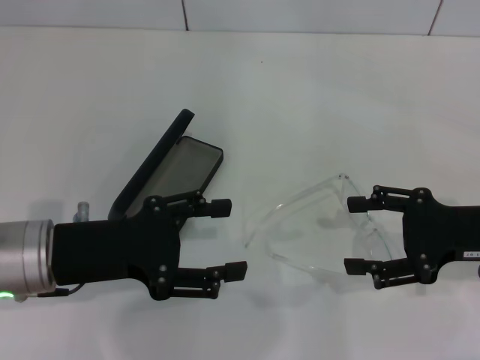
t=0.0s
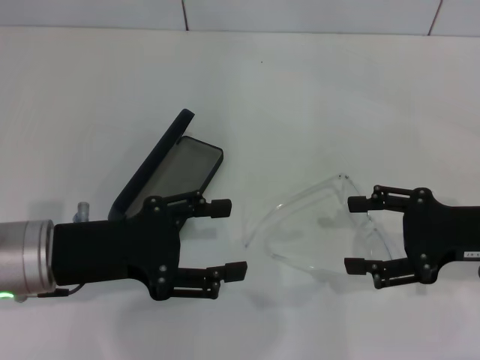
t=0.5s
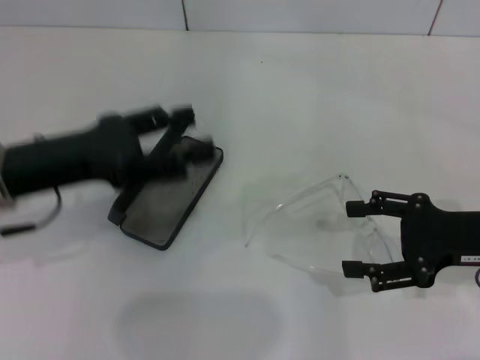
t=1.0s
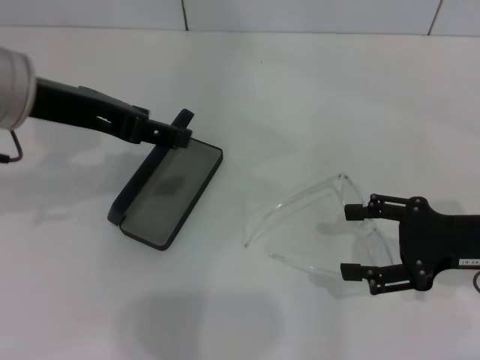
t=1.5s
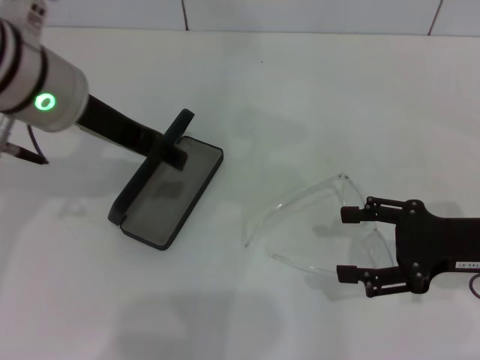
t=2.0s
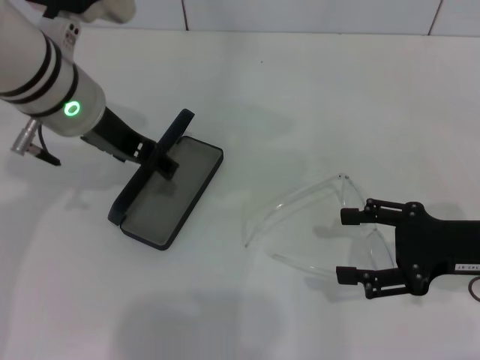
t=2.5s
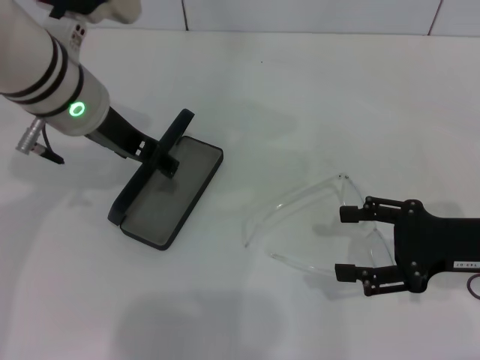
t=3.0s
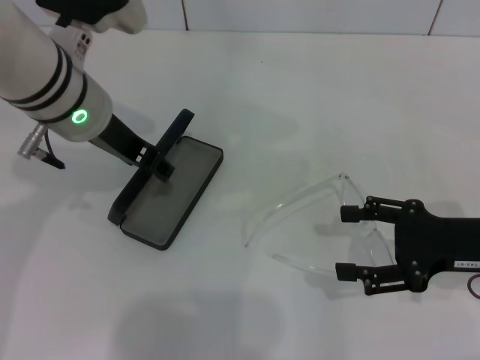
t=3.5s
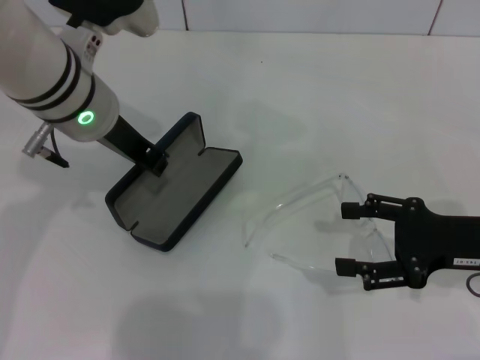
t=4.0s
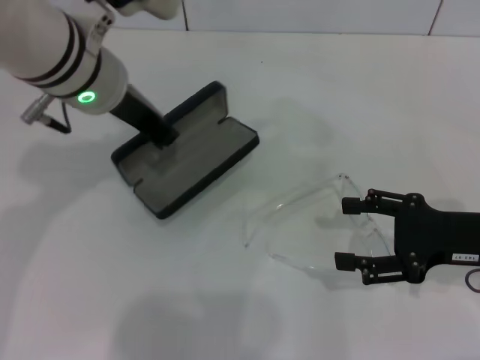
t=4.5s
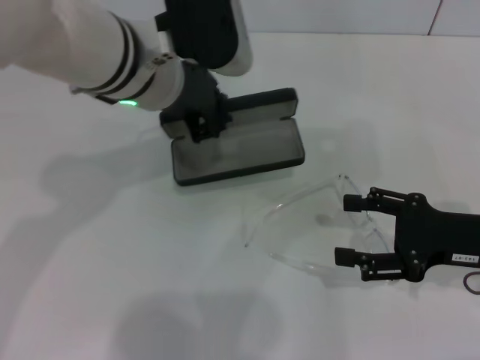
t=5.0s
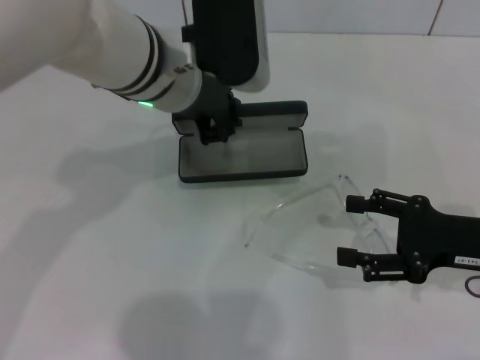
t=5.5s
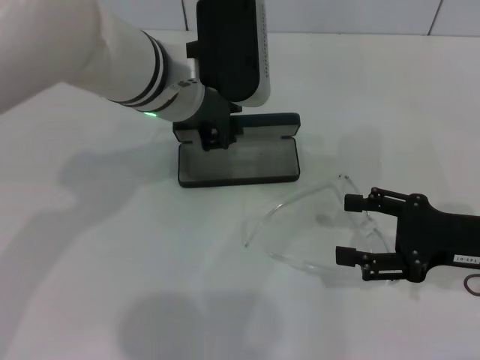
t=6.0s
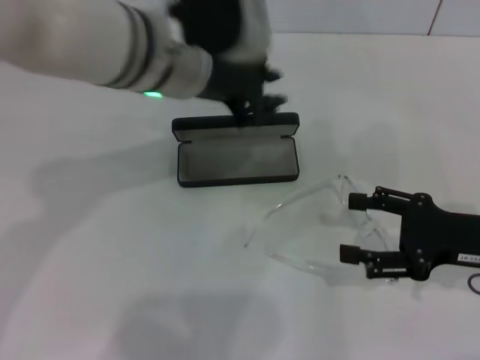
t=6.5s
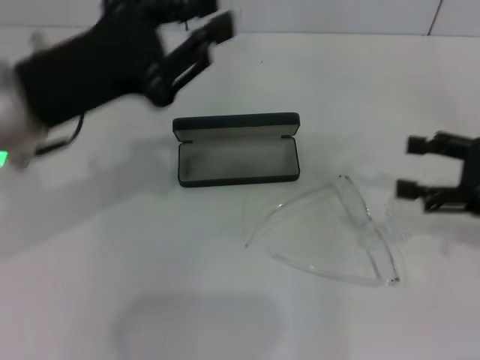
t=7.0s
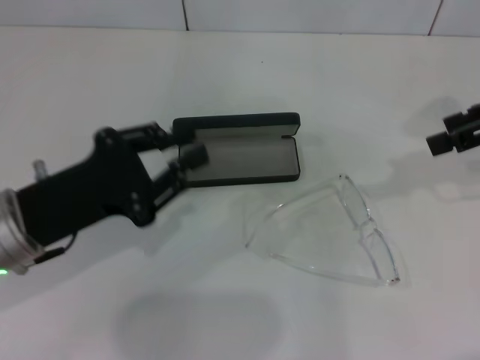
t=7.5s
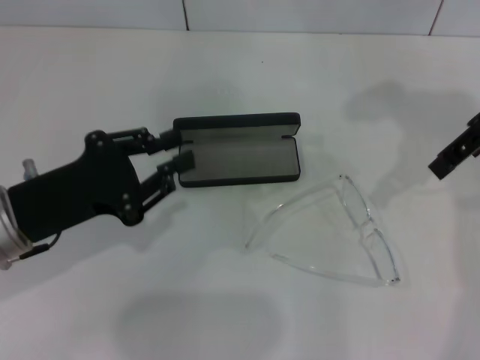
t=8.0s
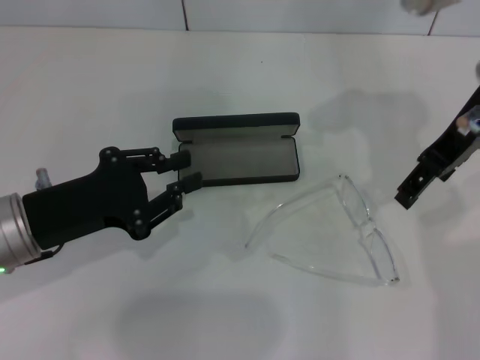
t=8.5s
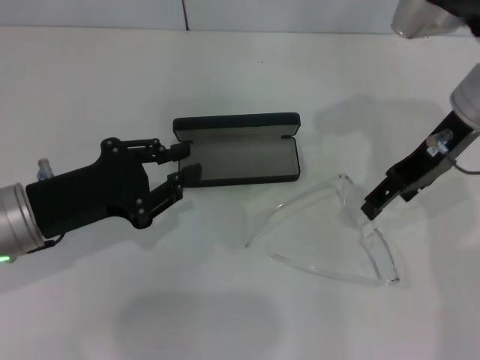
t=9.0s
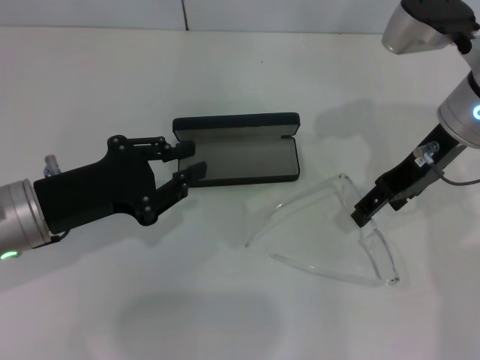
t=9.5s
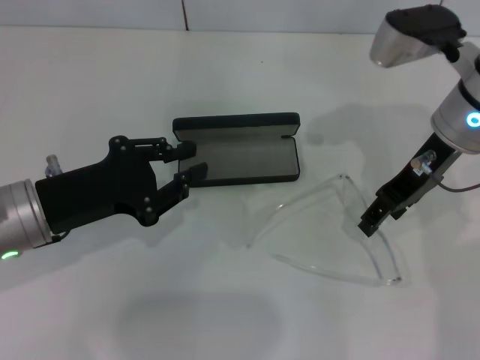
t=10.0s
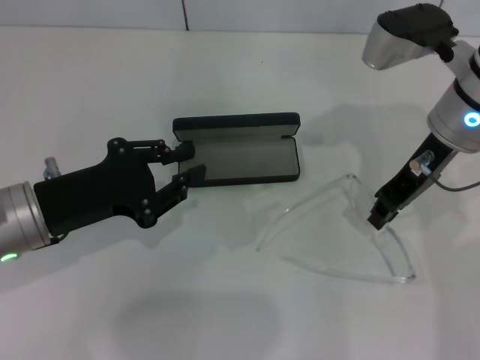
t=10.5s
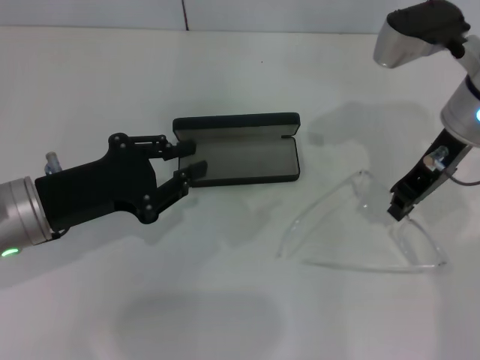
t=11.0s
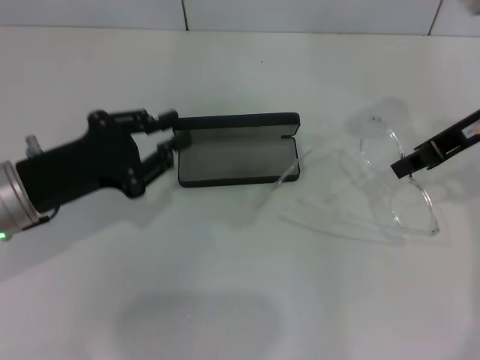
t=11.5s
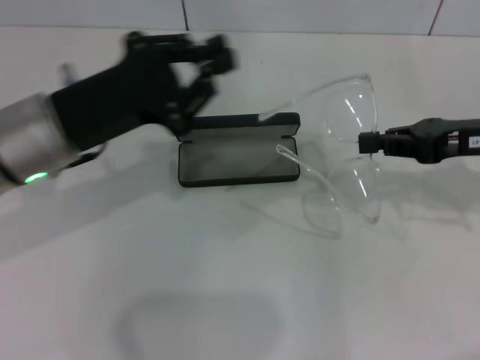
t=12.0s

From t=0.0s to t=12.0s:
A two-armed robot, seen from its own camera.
Step, from t=0.0s to t=4.0s: Grab the glasses case with your left hand.
Step, from t=4.5s to t=6.0s: Place the glasses case in the center of the table with your left hand.
Step, from t=6.5s to t=10.0s: Grab the eyeglass frame with your right hand.
From t=0.0s to t=2.0s: The left gripper moves upward, forward and to the right, about 15 cm.
From t=2.0s to t=4.0s: The left gripper shifts by approximately 5 cm, and closes.
From t=4.0s to t=6.0s: The left gripper goes some 5 cm to the right.
From t=6.0s to t=8.0s: The left gripper moves to the left, backward and downward, roughly 20 cm. Meanwhile the right gripper heads upward and forward, covering roughly 20 cm.
From t=8.0s to t=10.0s: The right gripper moves downward and to the left, approximately 10 cm.
From t=10.0s to t=12.0s: The right gripper heads to the right, covering approximately 10 cm, and closes up. Meanwhile the left gripper moves some 5 cm.

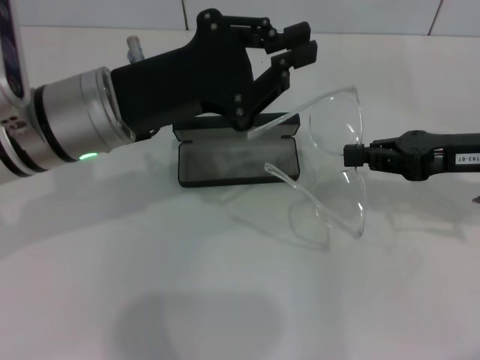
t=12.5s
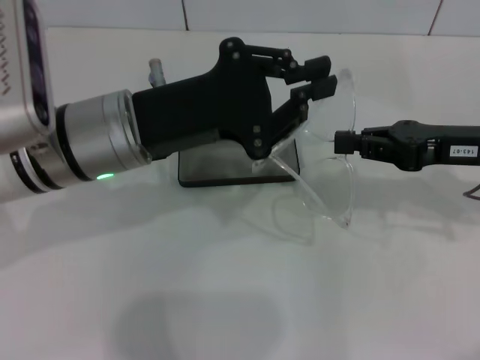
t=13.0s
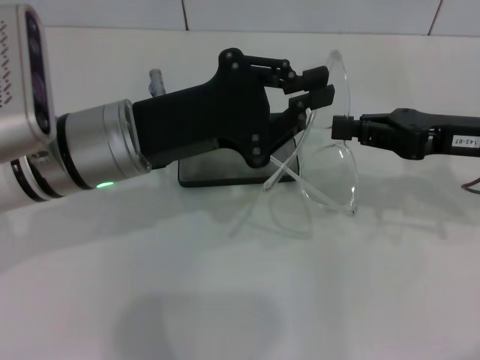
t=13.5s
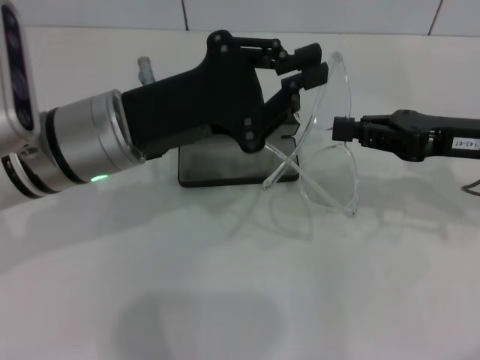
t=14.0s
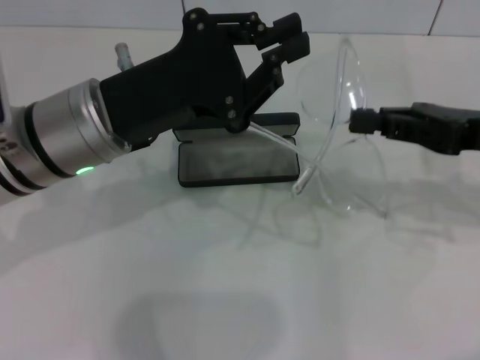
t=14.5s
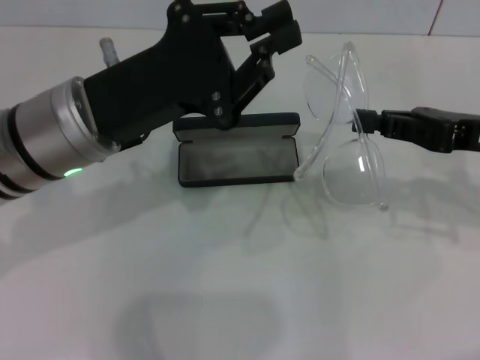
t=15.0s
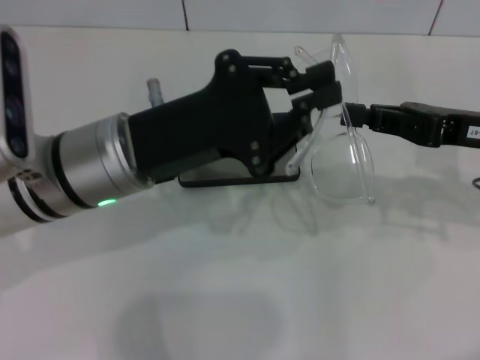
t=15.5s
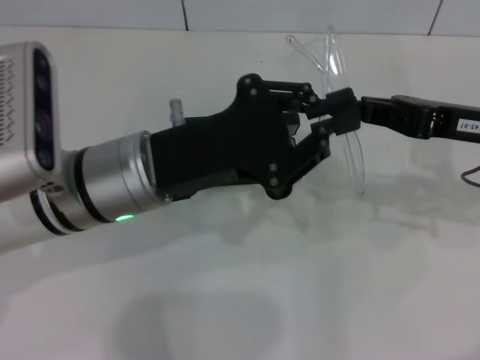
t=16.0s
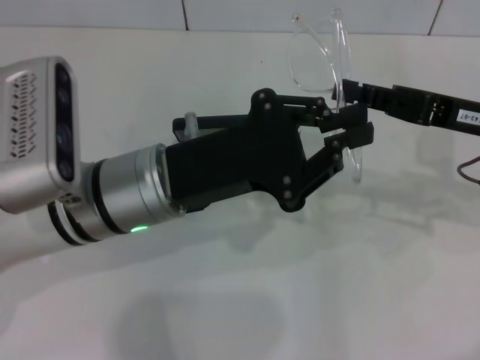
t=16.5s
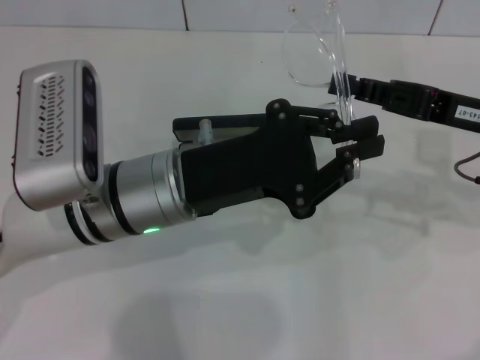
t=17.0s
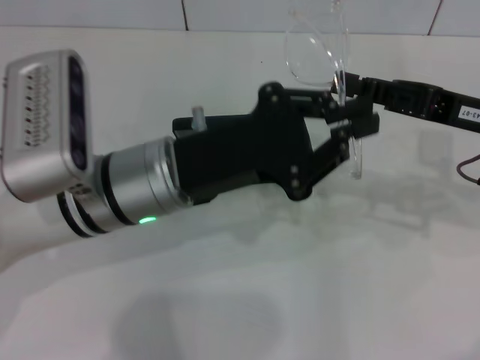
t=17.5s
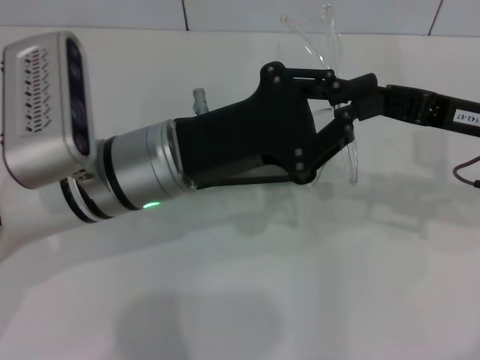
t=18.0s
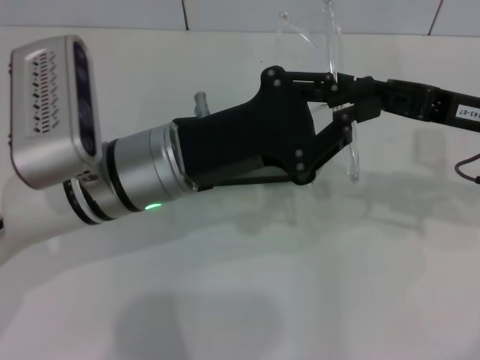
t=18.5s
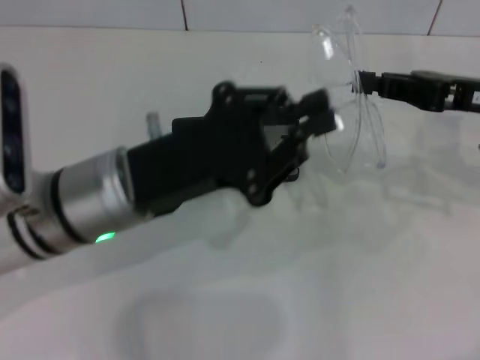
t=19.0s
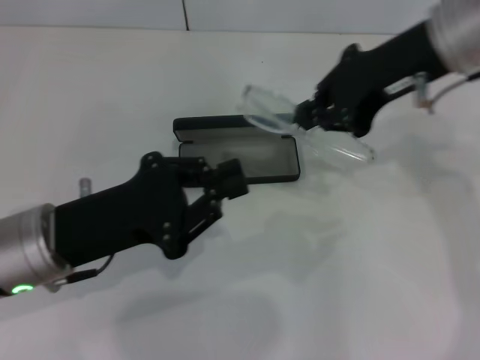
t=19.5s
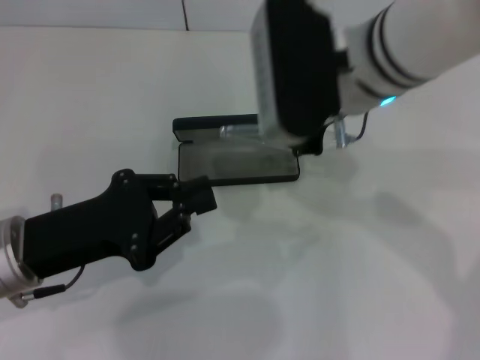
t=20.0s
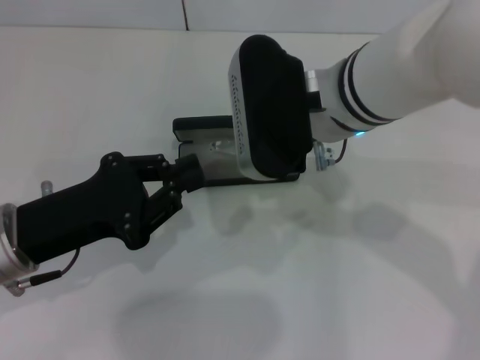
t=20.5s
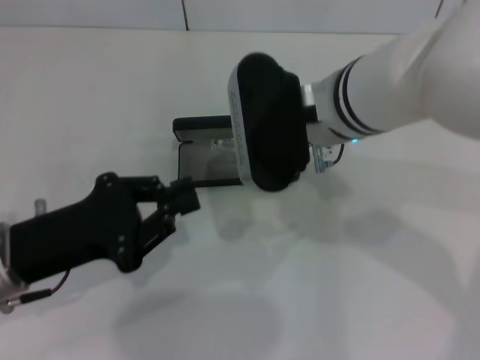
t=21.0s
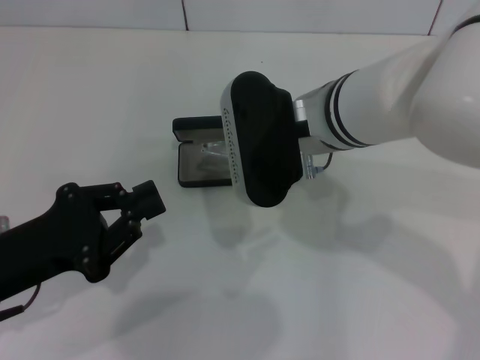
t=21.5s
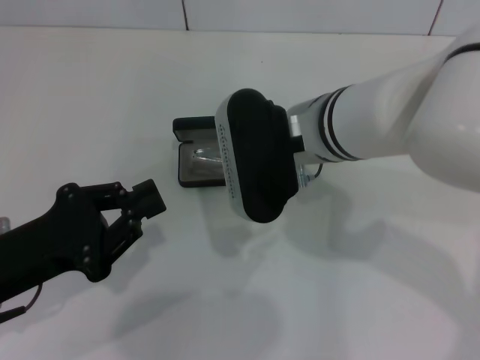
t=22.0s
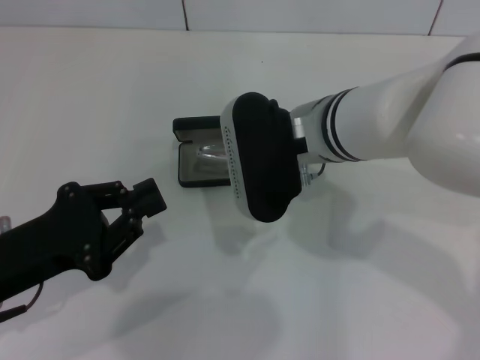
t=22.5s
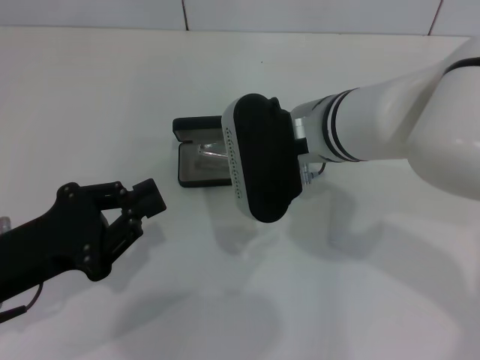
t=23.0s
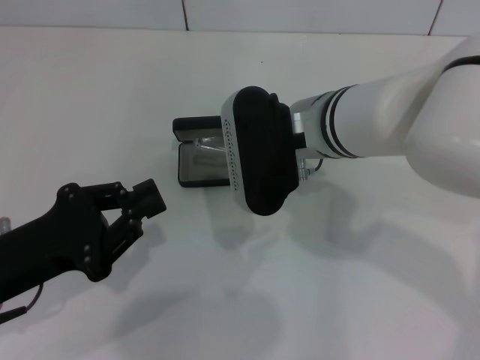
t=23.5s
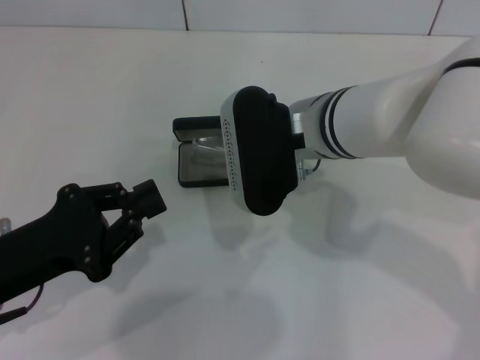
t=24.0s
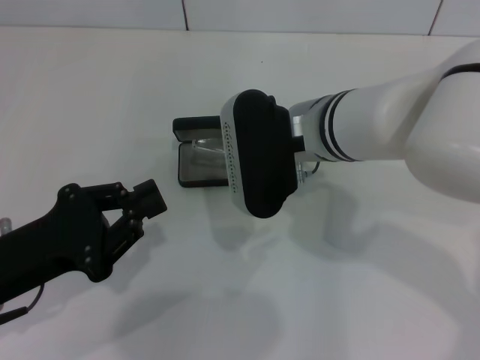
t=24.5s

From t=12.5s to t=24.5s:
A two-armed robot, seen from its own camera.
Step, from t=12.5s to t=18.5s: Fold the frame with your left hand.
From t=12.5s to t=14.5s: The grippers move only a little.
From t=14.5s to t=16.5s: The left gripper changes place by some 5 cm.
From t=16.5s to t=18.5s: There are only small adjustments of the grippers.
From t=18.5s to t=20.5s: The left gripper moves to the left and backward, some 15 cm; the right gripper moves to the left, about 20 cm.
From t=22.5s to t=24.5s: Neither gripper changes place.

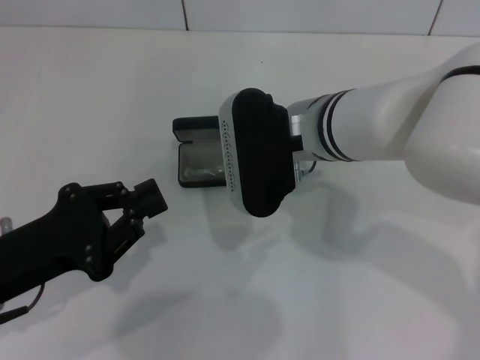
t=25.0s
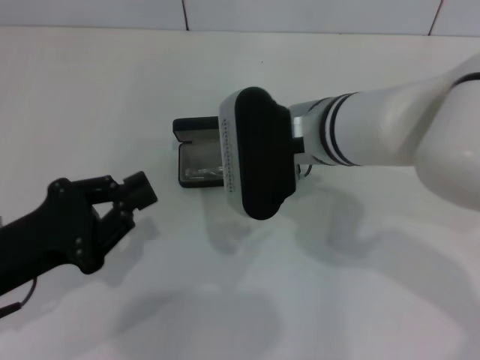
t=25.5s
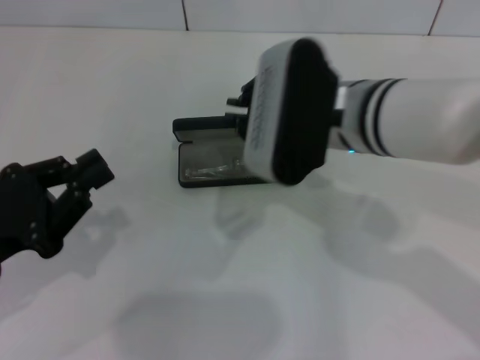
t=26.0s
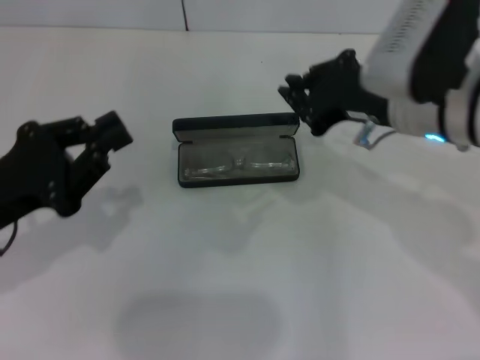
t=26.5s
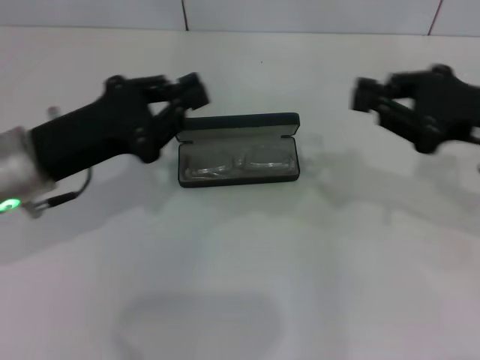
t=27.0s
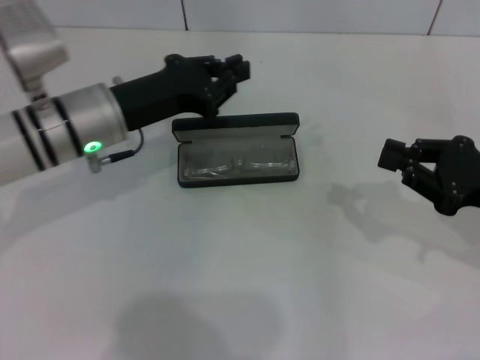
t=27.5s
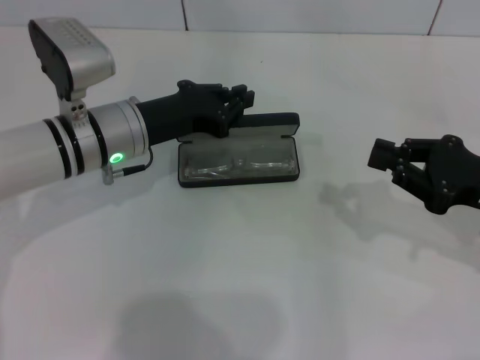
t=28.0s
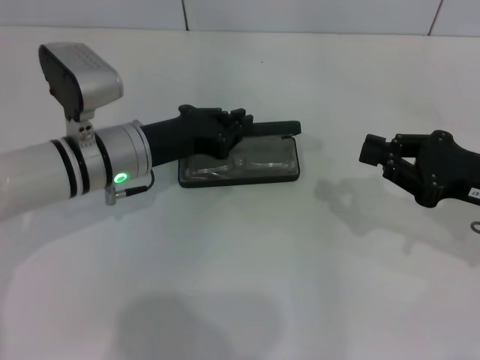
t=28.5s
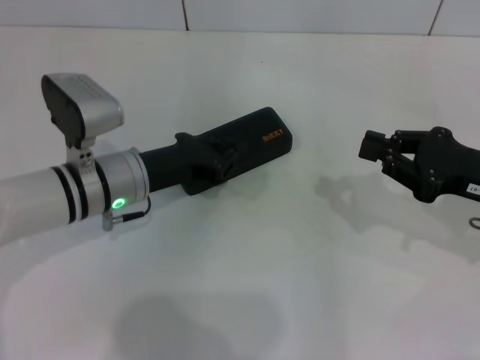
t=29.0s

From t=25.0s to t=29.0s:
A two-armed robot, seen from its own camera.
Step, from t=25.0s to t=29.0s: Close the glasses case with your left hand.
From t=25.0s to t=27.0s: The left gripper travels forward by about 10 cm, while the right gripper heads to the right, covering about 20 cm.
From t=27.0s to t=29.0s: The left gripper goes about 10 cm downward and to the right, while the right gripper goes some 5 cm downward.
